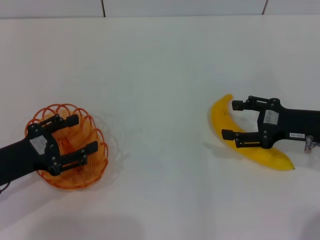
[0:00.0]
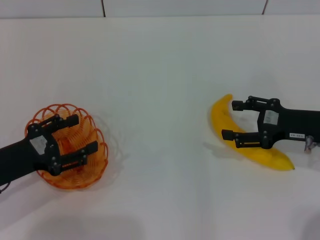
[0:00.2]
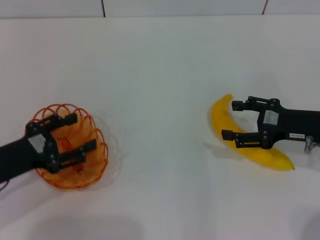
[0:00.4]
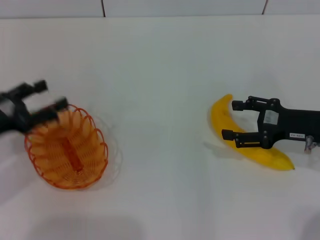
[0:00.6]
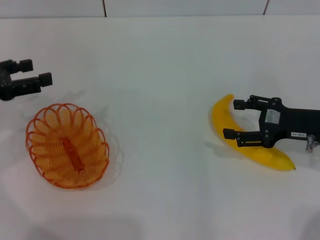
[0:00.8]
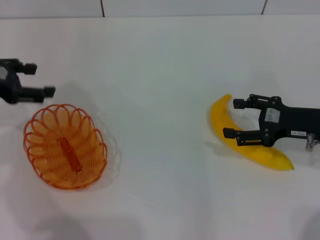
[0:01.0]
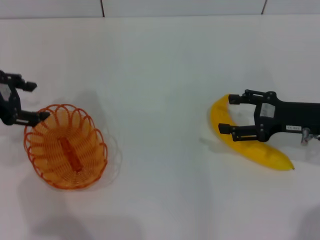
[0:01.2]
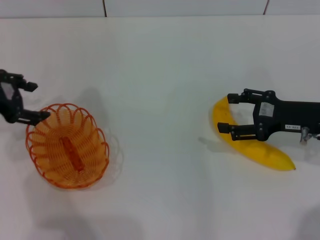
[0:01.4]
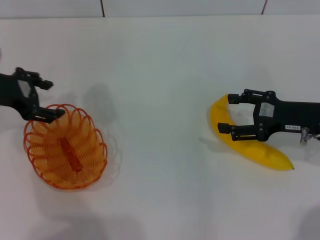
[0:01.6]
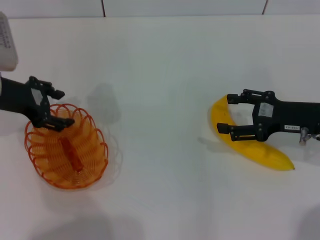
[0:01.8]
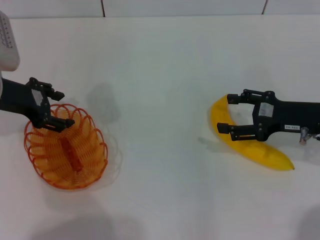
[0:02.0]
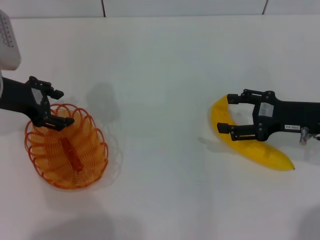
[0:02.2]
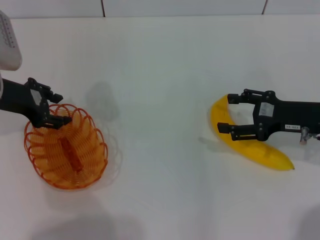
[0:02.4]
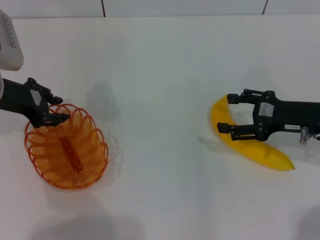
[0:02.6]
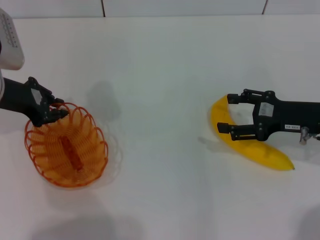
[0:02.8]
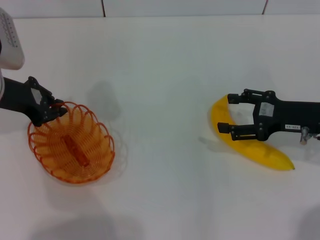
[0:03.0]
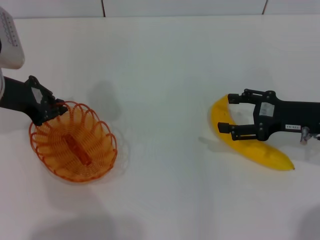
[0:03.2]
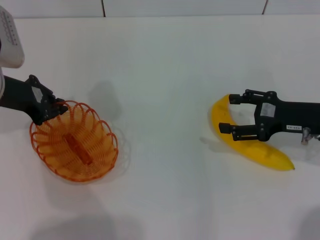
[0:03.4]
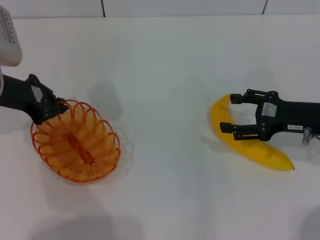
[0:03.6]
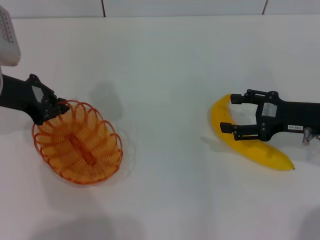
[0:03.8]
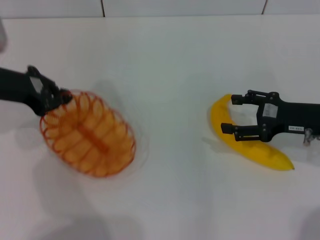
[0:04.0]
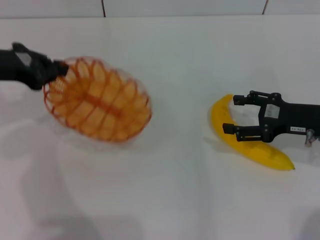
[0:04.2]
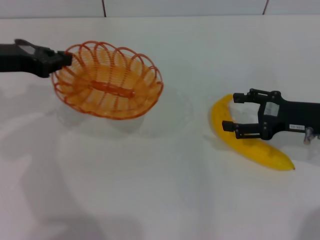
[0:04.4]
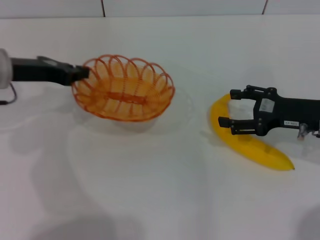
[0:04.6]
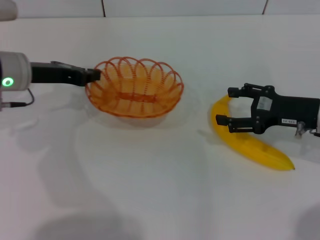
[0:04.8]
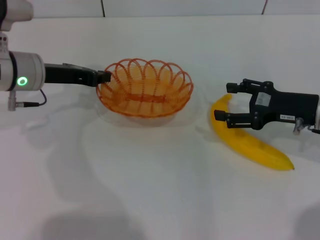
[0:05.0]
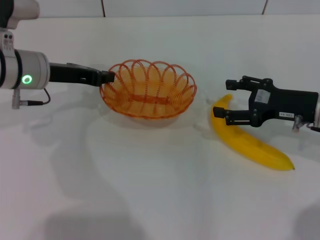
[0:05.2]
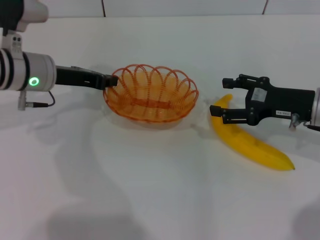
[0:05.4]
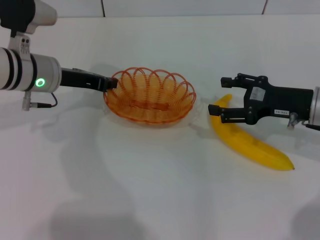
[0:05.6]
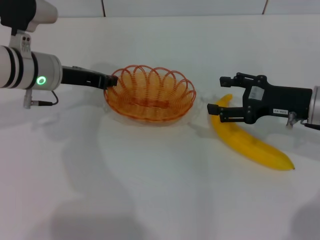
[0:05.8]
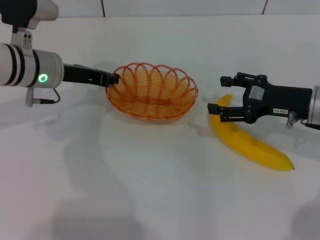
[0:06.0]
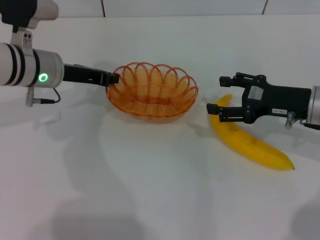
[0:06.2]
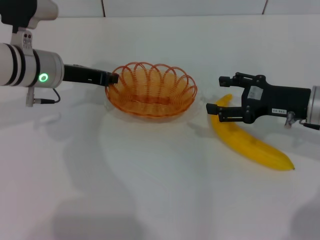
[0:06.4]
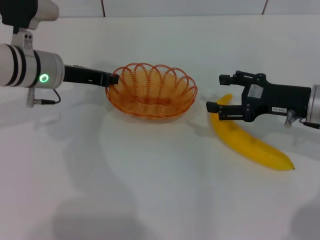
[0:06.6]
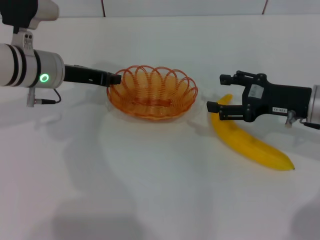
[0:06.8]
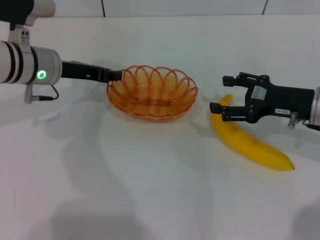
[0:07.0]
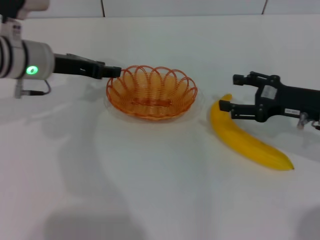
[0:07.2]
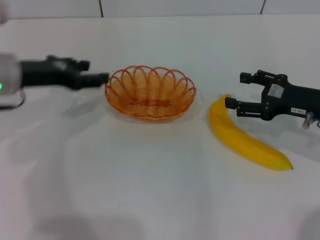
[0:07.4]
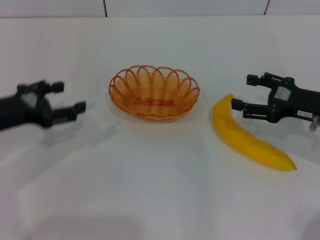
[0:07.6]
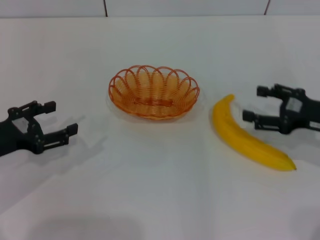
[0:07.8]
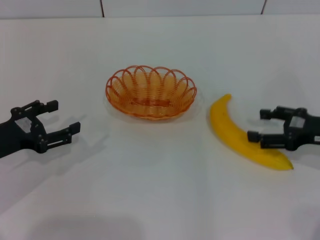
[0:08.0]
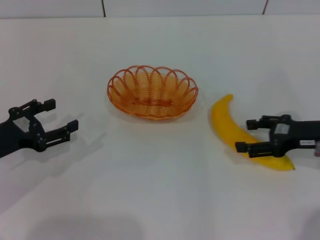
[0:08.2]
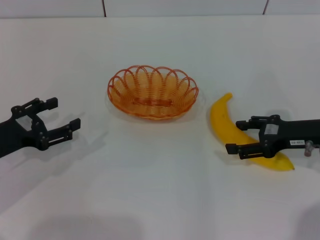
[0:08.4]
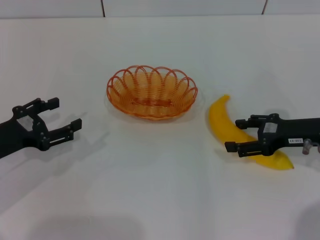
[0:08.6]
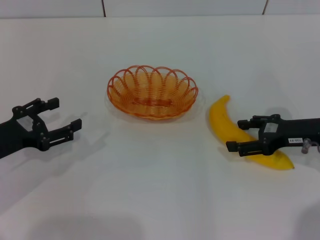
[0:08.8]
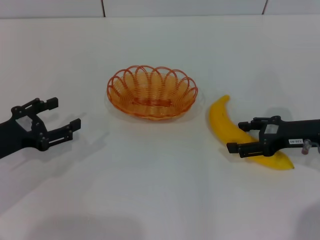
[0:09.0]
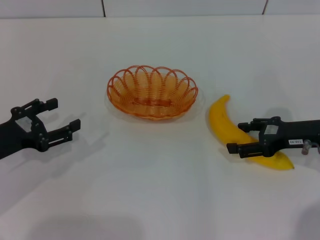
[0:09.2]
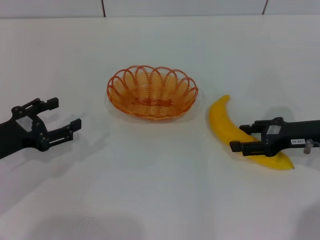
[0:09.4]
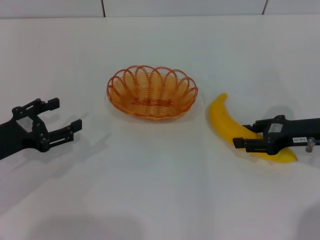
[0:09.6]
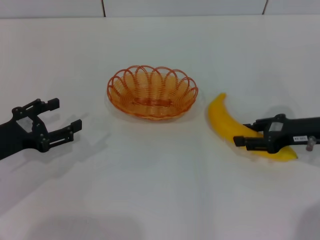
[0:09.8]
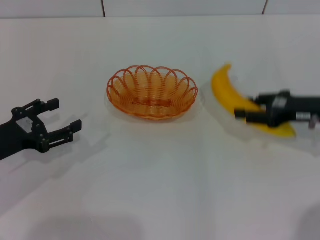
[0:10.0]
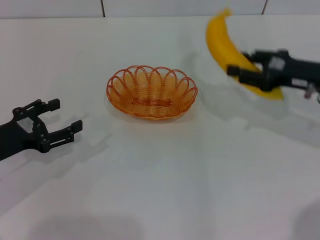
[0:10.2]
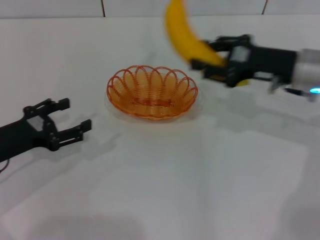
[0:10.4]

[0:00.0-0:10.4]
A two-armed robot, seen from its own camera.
Step, 0:00.0 to 0:04.0: Pick up the basket with the left gripper.
Step, 0:04.2 to 0:07.4: Place the basket in the center of view with the left gripper.
Step, 0:07.6 to 0:10.2: Pick up the banana with the right gripper.
0:00.0 to 0:01.4: The left gripper travels upward and forward by approximately 15 cm.
0:01.4 to 0:03.0: The left gripper closes up.
0:04.4 to 0:06.0: The left gripper moves to the right and downward, roughly 10 cm.
0:06.0 to 0:07.4: The left gripper is displaced to the left by approximately 5 cm, and opens.
0:07.4 to 0:09.0: The left gripper shifts about 15 cm backward, downward and to the left, and opens.
0:09.0 to 0:10.4: The right gripper heads upward, to the left and forward, covering some 10 cm, and closes up.

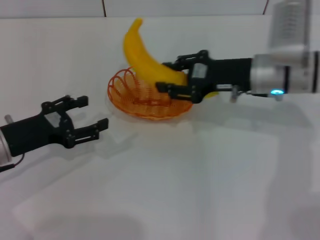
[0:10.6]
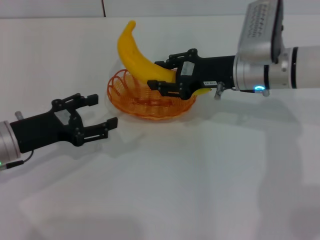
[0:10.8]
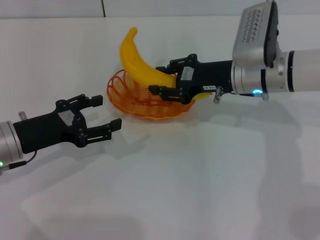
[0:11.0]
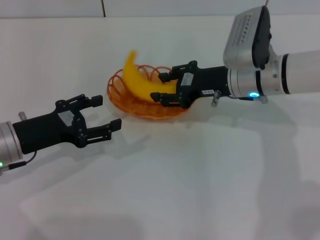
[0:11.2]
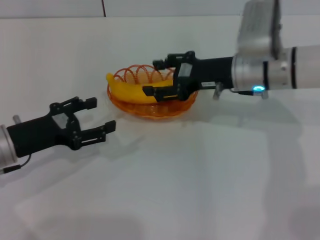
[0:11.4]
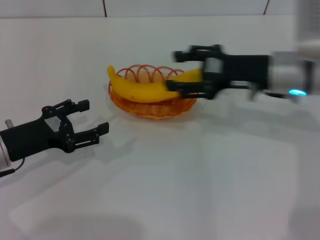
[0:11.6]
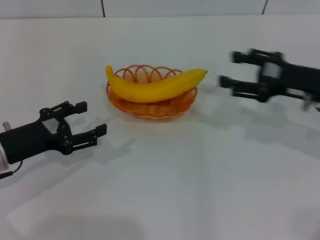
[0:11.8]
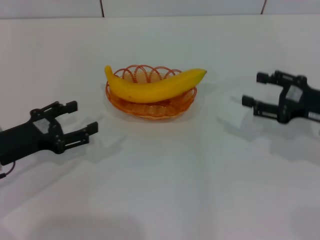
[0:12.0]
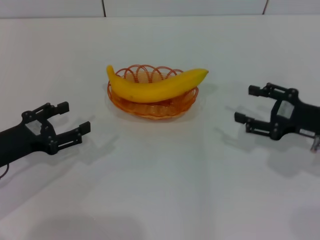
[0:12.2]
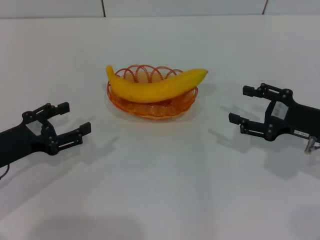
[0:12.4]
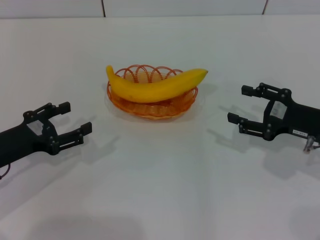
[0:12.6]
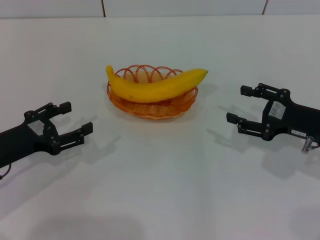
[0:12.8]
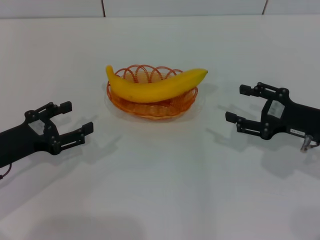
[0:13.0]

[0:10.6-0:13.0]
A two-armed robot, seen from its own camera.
Step, 0:10.6 to 0:11.4: Place the banana into the basket with the right gripper.
0:10.6 to 0:11.8: The right gripper heads to the right and backward, covering approximately 10 cm, and opens up.
0:11.8 to 0:13.0: The right gripper moves approximately 5 cm.

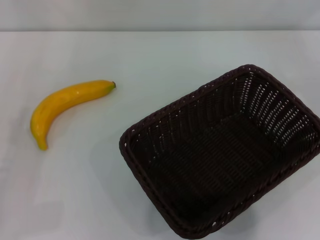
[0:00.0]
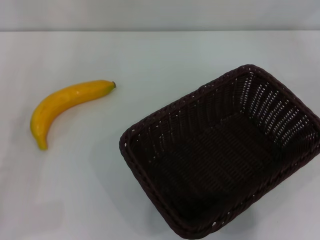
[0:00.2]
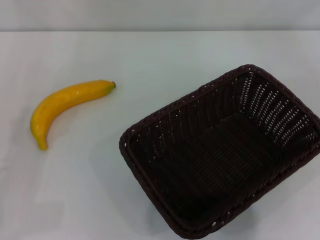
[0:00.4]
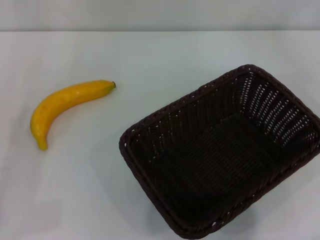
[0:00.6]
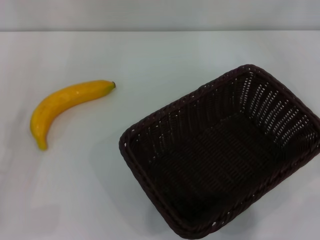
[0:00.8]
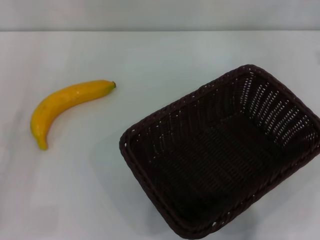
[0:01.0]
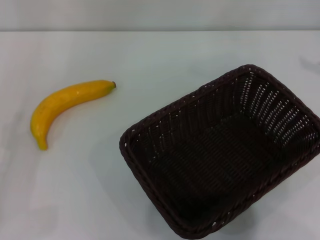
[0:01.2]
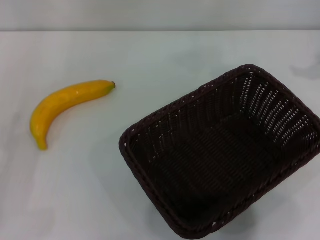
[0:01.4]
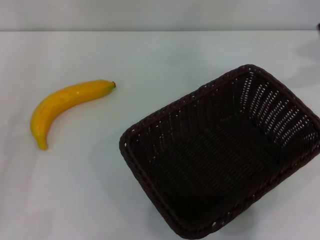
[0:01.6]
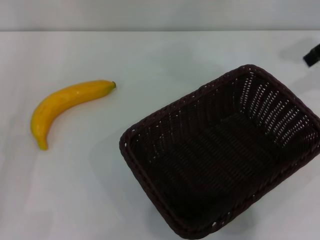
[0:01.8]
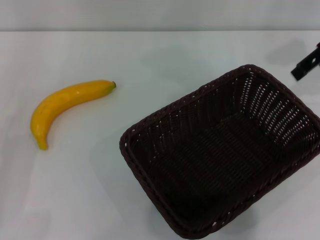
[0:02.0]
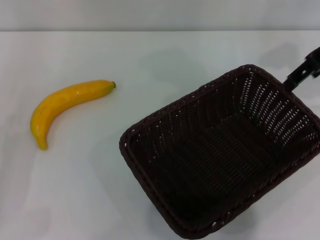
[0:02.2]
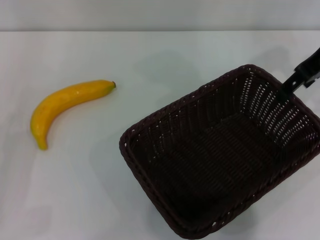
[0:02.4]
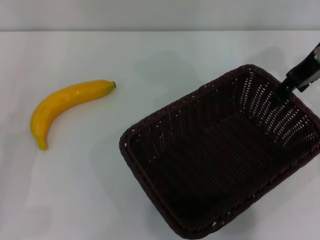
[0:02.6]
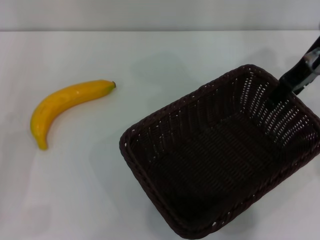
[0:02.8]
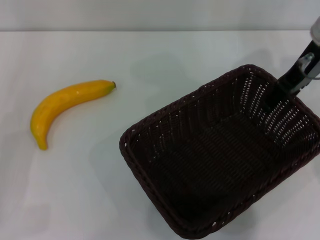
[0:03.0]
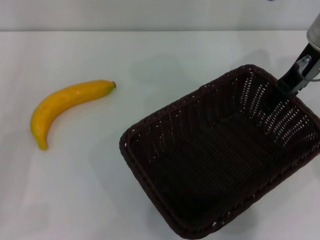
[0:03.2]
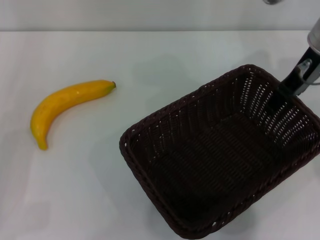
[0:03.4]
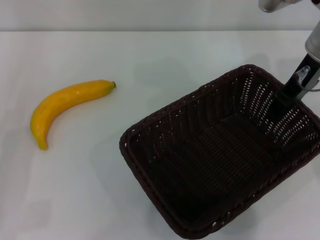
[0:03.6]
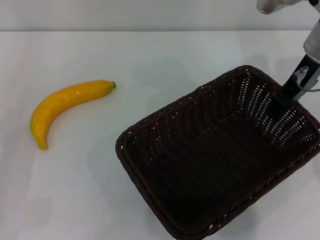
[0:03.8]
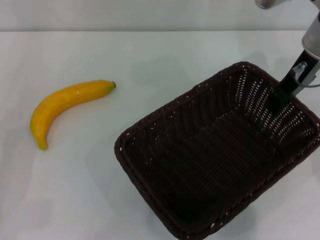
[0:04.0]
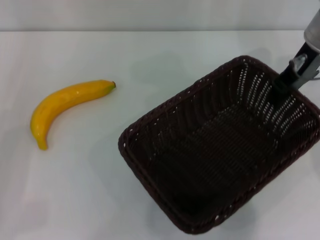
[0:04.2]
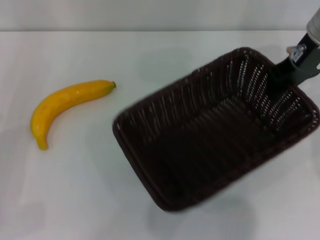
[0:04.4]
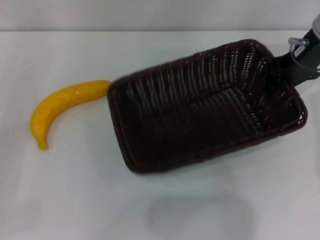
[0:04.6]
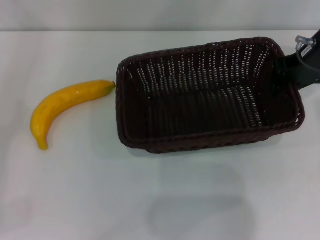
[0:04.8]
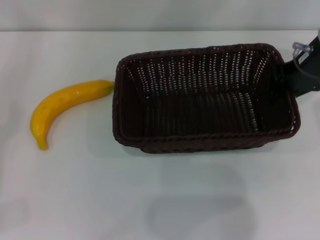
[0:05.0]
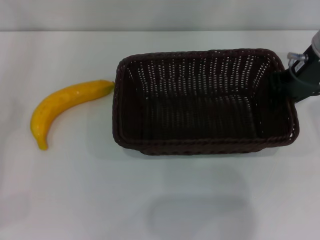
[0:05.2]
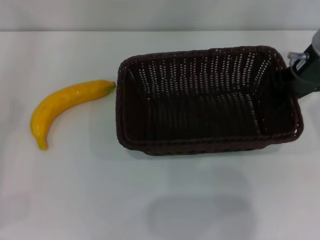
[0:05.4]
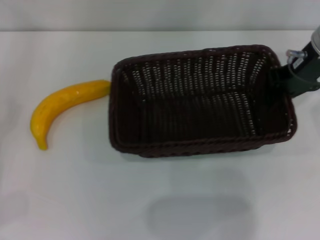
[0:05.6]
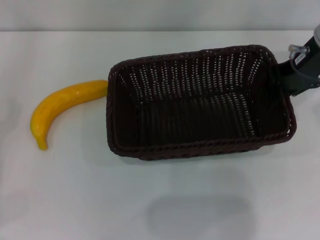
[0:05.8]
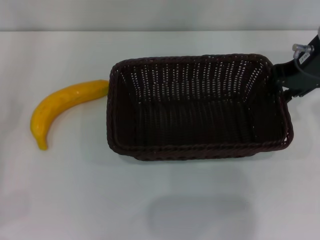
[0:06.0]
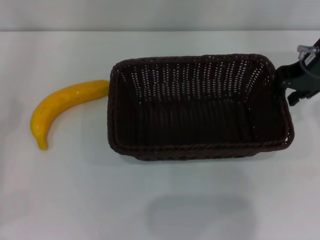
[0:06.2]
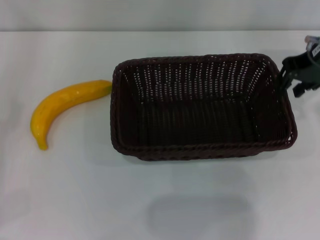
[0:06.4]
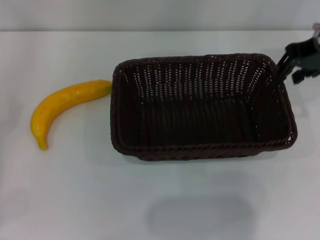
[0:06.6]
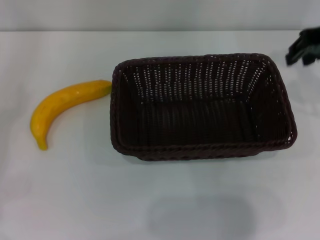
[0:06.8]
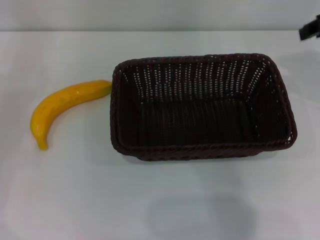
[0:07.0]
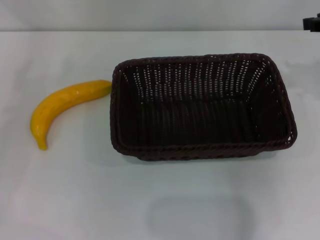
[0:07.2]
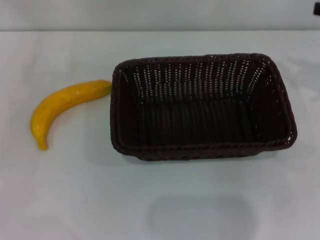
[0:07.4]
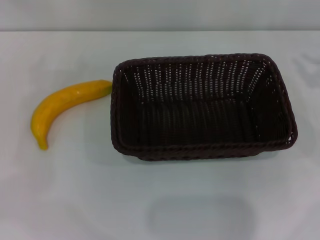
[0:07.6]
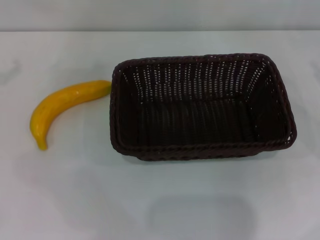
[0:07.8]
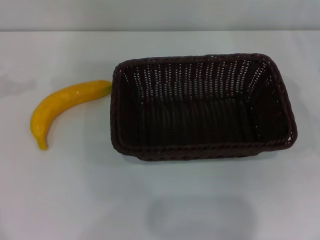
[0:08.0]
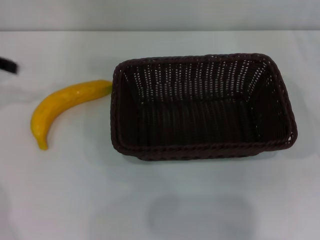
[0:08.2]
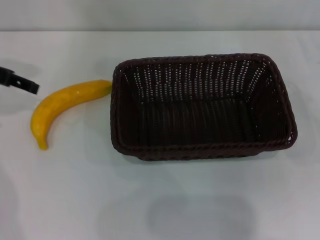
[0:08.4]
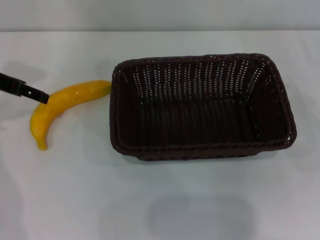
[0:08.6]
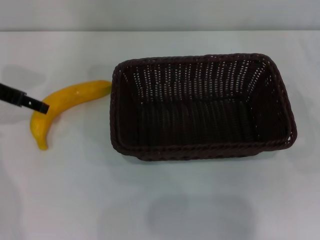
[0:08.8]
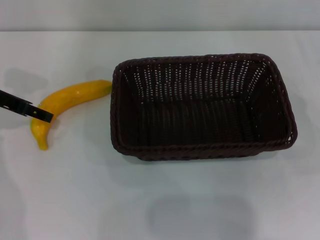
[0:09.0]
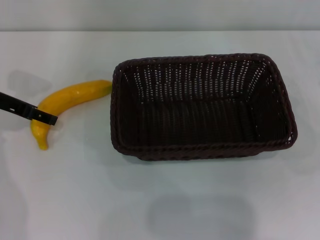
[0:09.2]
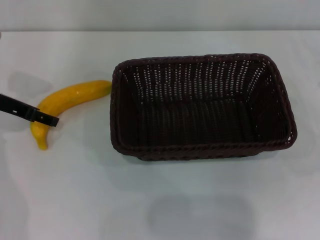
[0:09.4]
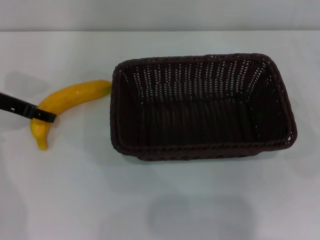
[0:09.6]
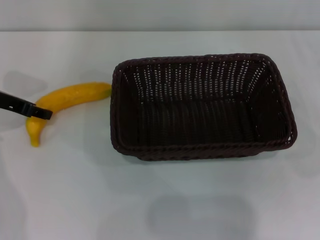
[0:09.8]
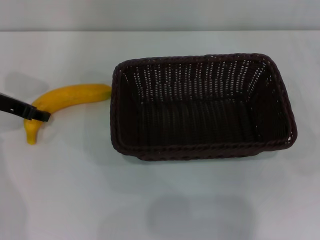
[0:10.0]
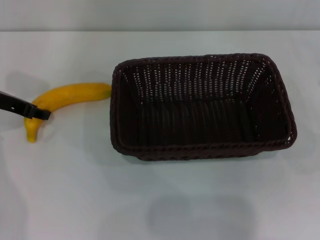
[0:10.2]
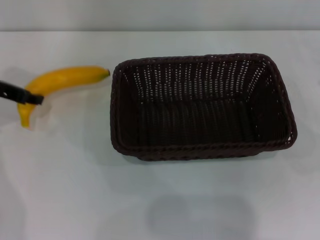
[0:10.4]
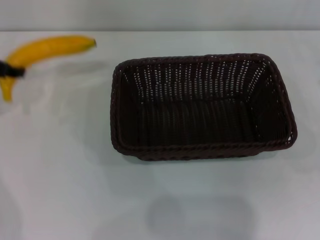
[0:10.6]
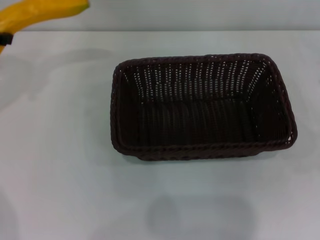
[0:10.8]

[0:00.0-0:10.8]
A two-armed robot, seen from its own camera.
Step, 0:00.0 to 0:04.2: Pick up the dark basket with the right gripper.
Step, 0:04.4 to 0:06.0: Place the dark basket in the center of view with the right gripper.
Step, 0:06.2 to 0:10.2: Pick up the banana with the left gripper.
0:01.6 to 0:03.0: The right gripper travels to the left and downward by approximately 15 cm.
0:03.0 to 0:04.6: The right gripper closes up, while the left gripper ends up some 5 cm from where it was.
0:04.6 to 0:06.2: The grippers make only small movements.
0:06.2 to 0:07.8: The right gripper travels to the right, downward and backward by about 20 cm. The left gripper is displaced upward and forward by approximately 20 cm.
0:07.8 to 0:09.2: The left gripper is displaced to the right and downward by about 15 cm.
0:09.2 to 0:10.8: The left gripper travels upward by about 10 cm, and closes up.
